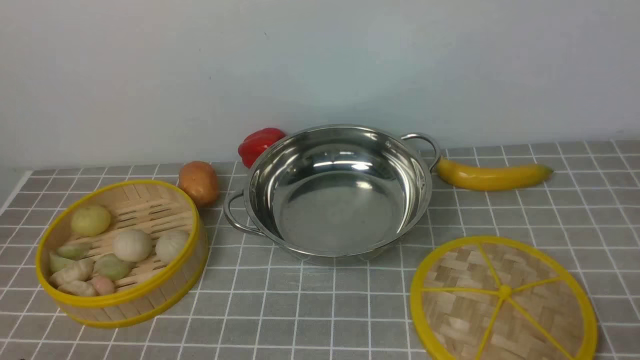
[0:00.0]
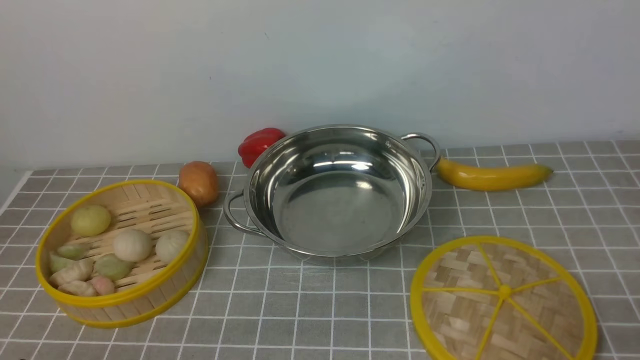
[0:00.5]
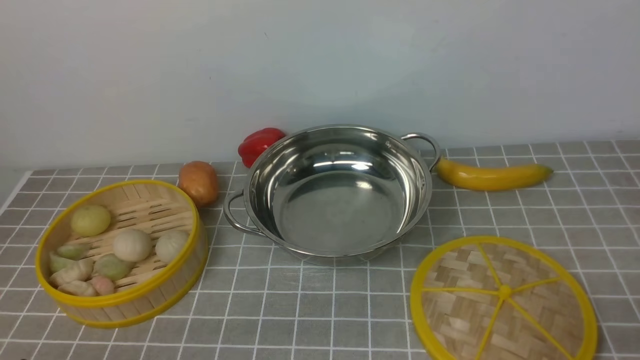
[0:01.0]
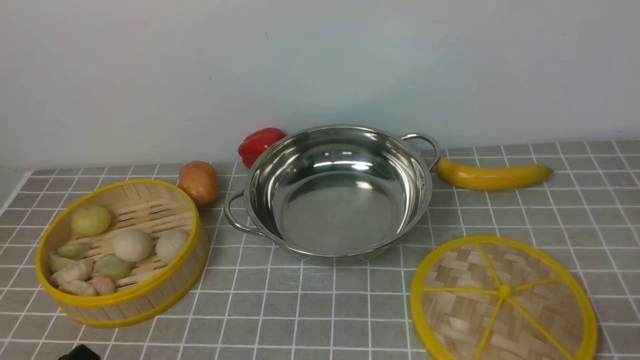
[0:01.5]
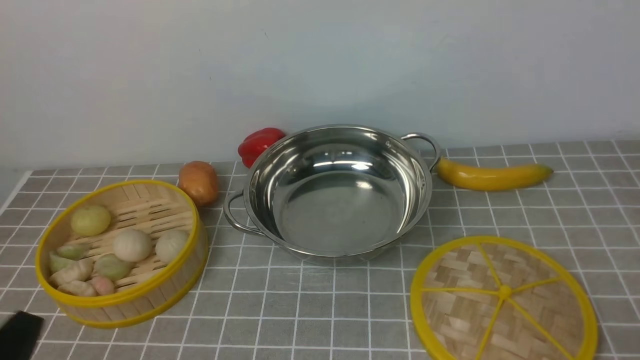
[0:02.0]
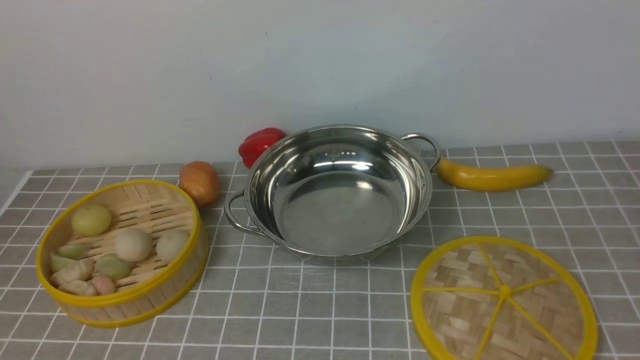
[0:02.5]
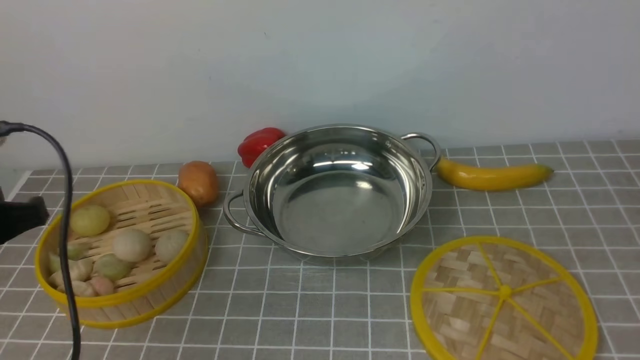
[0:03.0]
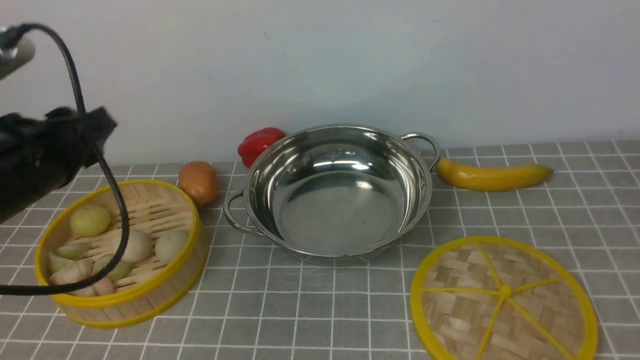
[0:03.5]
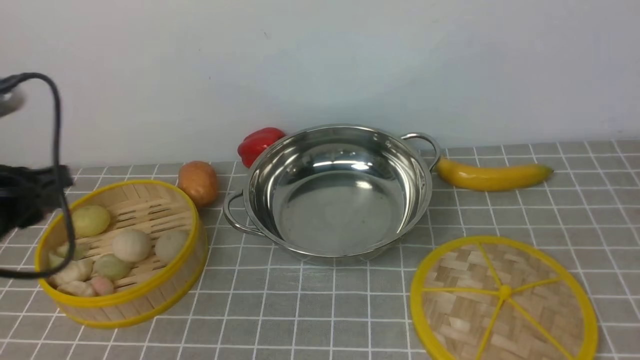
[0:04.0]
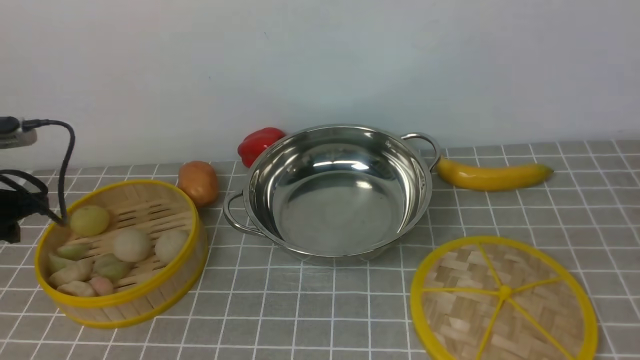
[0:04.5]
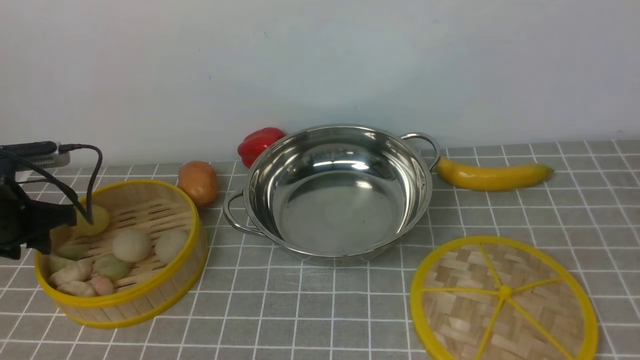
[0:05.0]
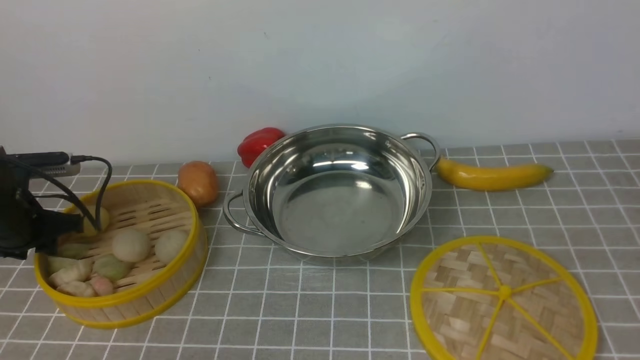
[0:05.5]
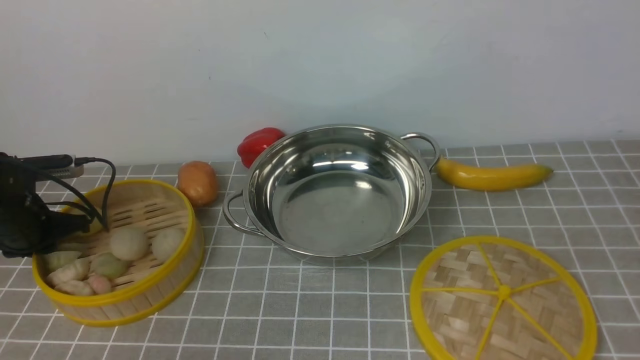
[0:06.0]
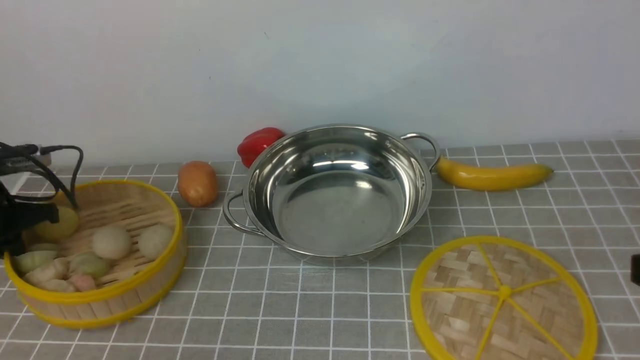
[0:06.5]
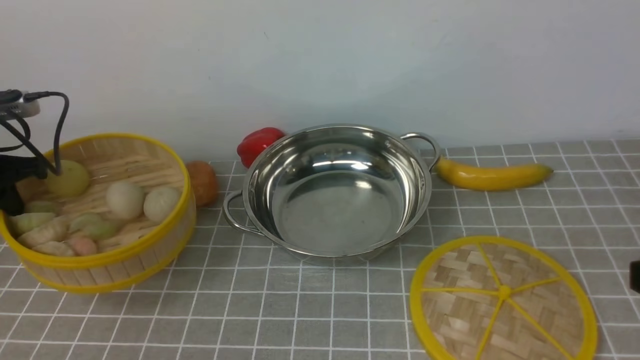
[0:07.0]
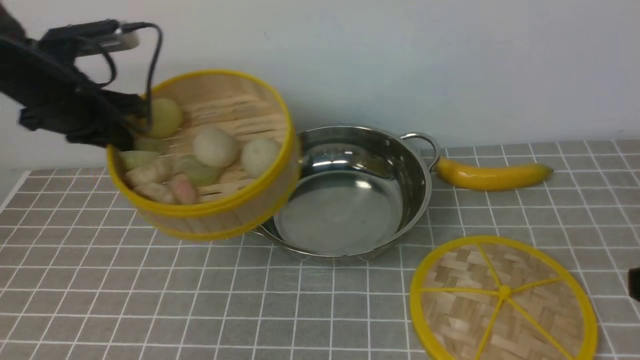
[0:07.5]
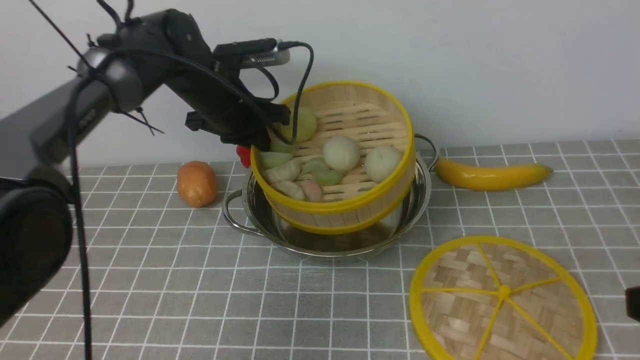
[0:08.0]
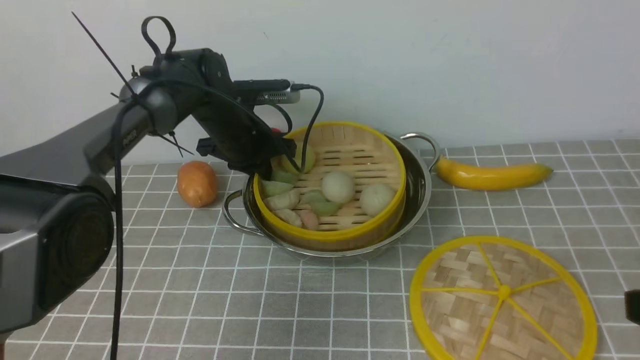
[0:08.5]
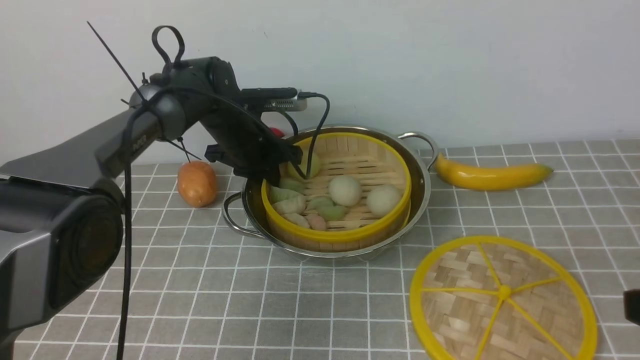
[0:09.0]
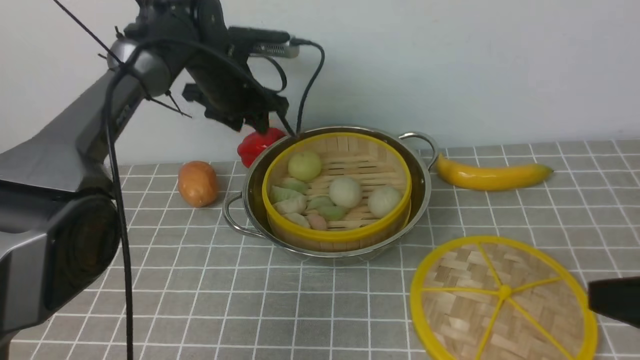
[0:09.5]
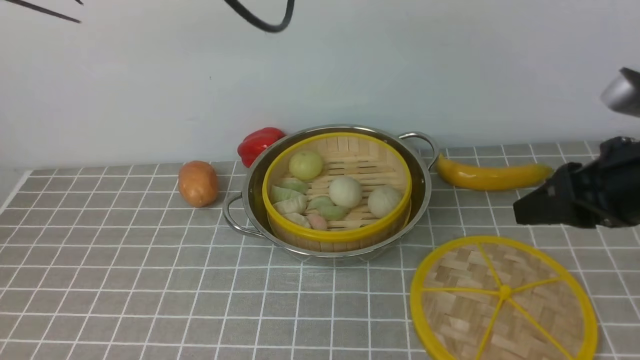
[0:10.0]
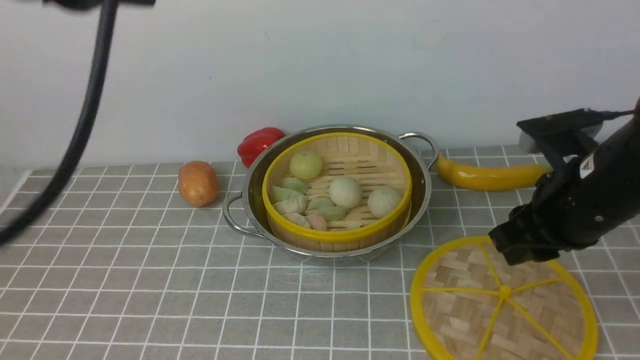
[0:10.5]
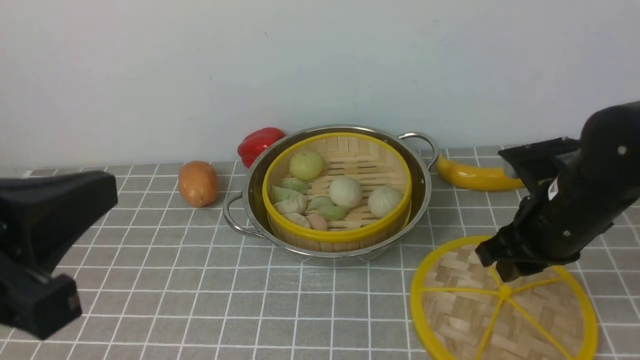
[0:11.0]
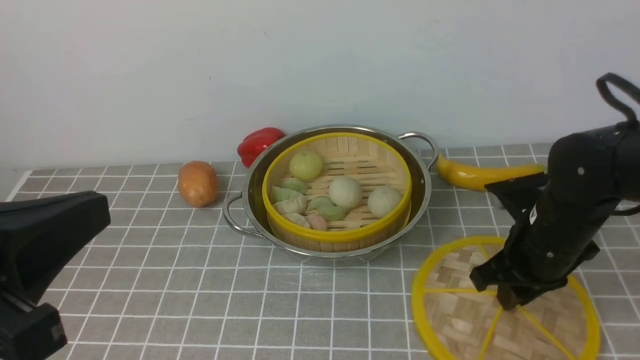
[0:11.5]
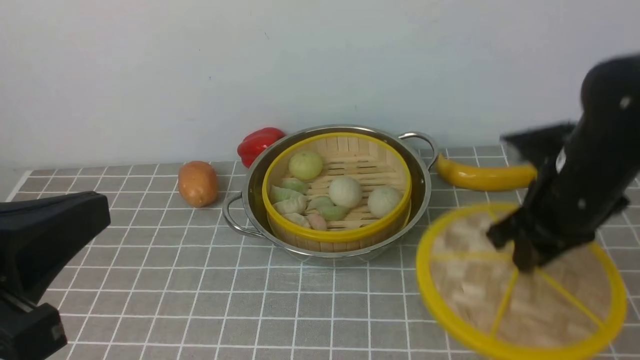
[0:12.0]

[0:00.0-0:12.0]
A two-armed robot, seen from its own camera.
Task of the whole recording: place the steamer in the pot on the grey tablecloth, and put the lid on the steamer.
Step, 0:00.0 to 0:06.5: use the left arm to lift the steamer closest to it.
Step, 0:07.0 to 0:09.0: use the left arm to put the steamer into the iron steamer pot in the middle.
Step, 0:09.5 to 0:11.5: use the right arm to lift the lid of the steamer.
0:02.0 to 0:04.0: The left gripper is displaced forward and upward by roughly 20 cm.
0:04.0 to 0:06.0: The left gripper goes some 25 cm downward, forward and to the left.
0:06.0 to 0:08.0: The left gripper heads to the right, upward and forward, covering some 25 cm.
0:08.0 to 0:10.0: The right gripper moves forward, about 10 cm. The left gripper moves upward, approximately 20 cm, and opens and closes again.
0:10.0 to 0:12.0: The right gripper travels forward and downward by some 10 cm; the left gripper shifts some 30 cm backward.

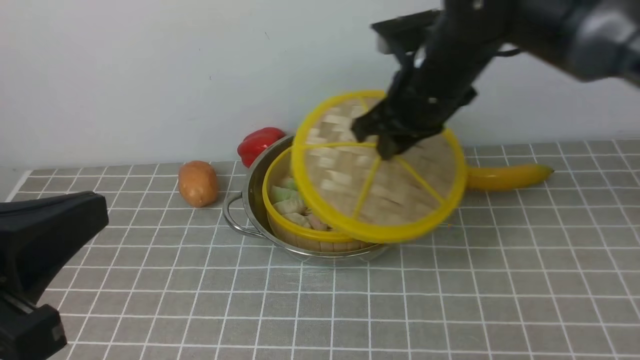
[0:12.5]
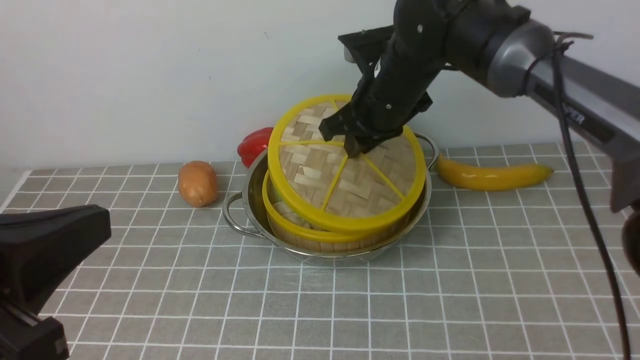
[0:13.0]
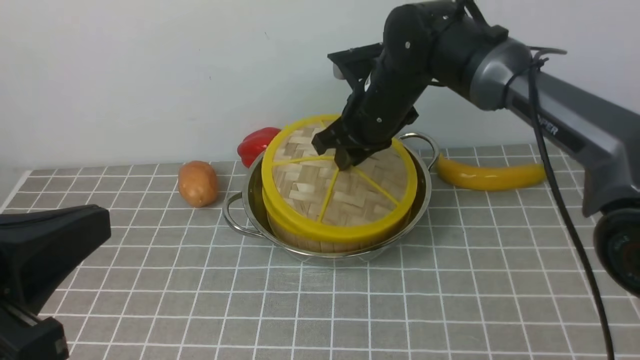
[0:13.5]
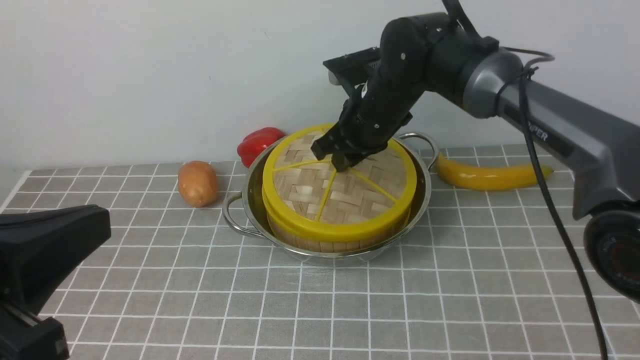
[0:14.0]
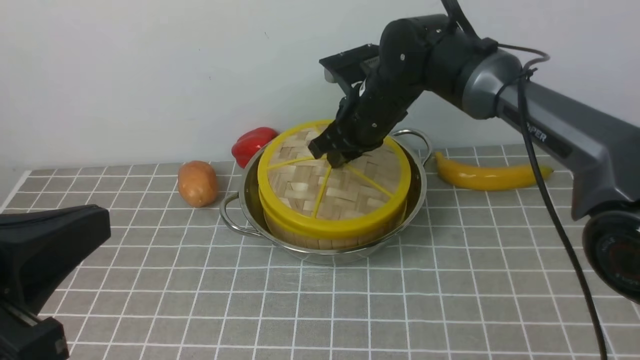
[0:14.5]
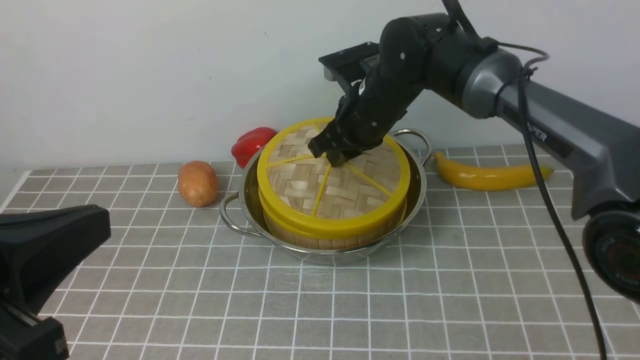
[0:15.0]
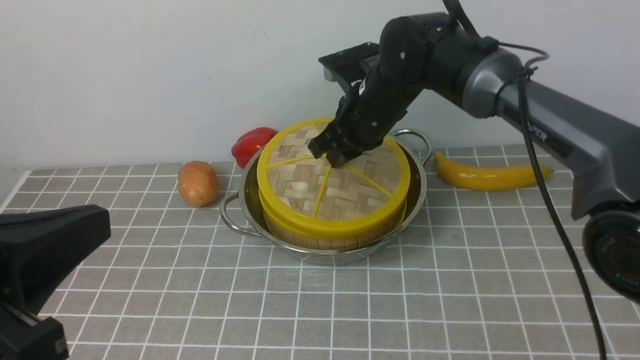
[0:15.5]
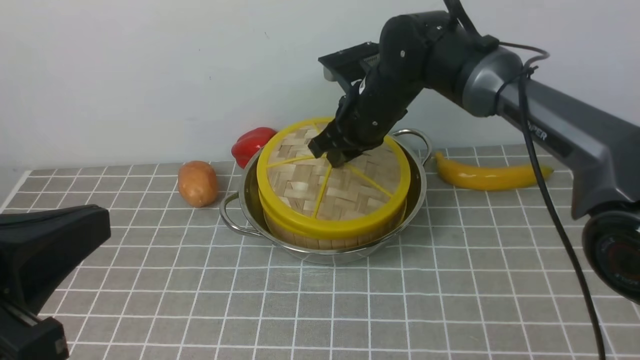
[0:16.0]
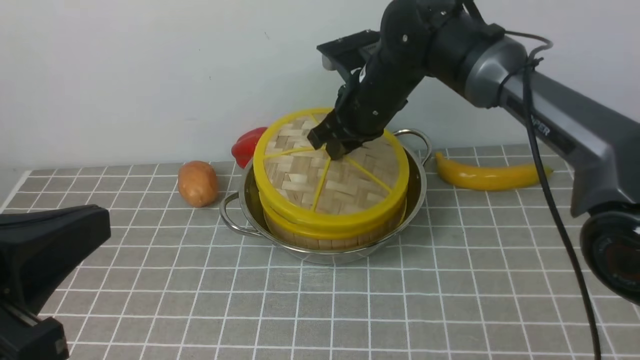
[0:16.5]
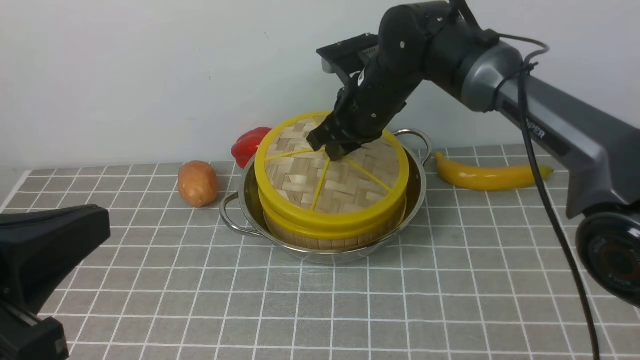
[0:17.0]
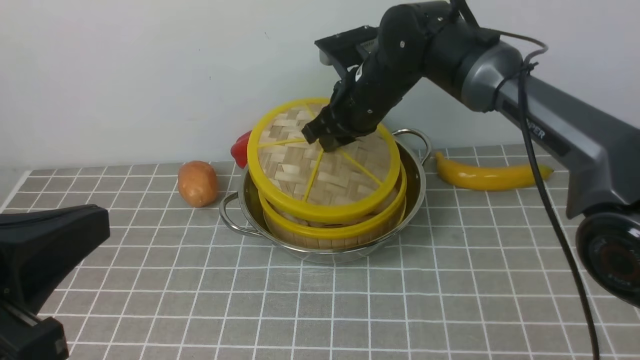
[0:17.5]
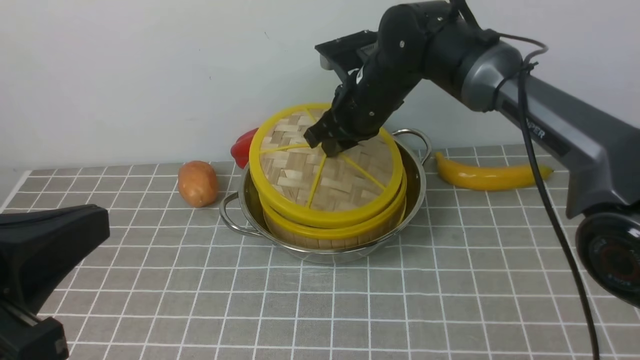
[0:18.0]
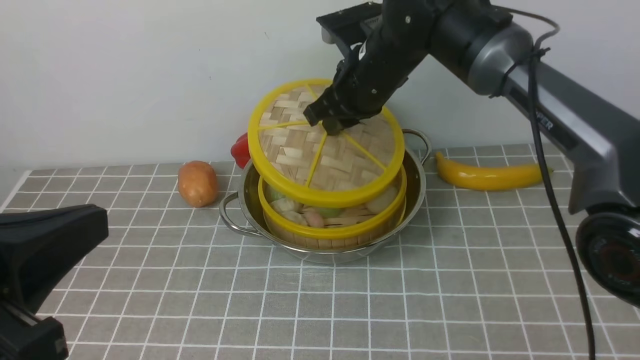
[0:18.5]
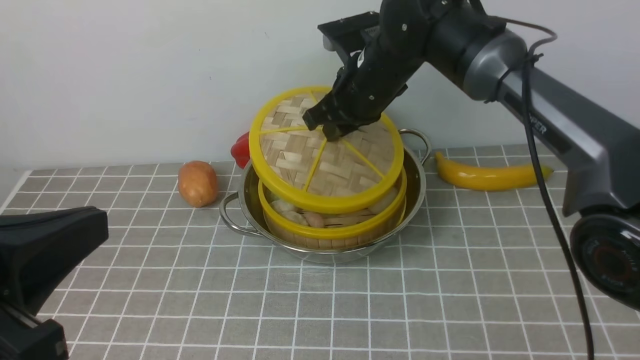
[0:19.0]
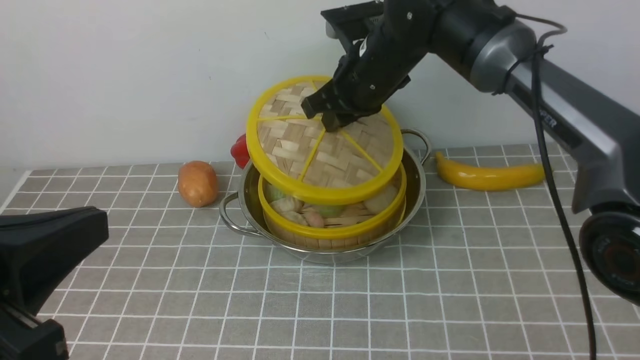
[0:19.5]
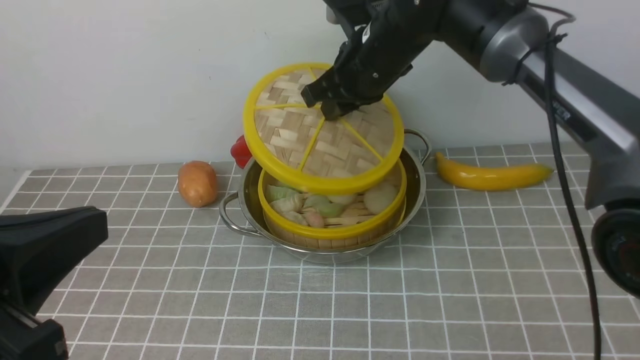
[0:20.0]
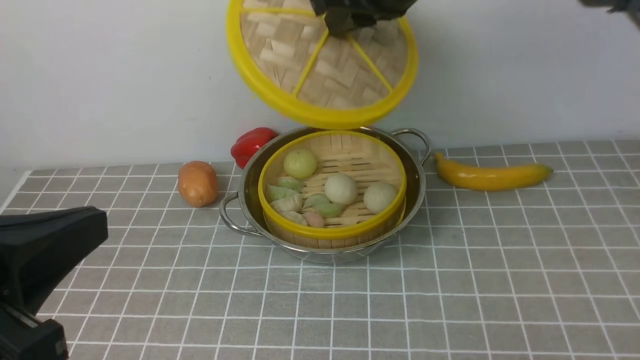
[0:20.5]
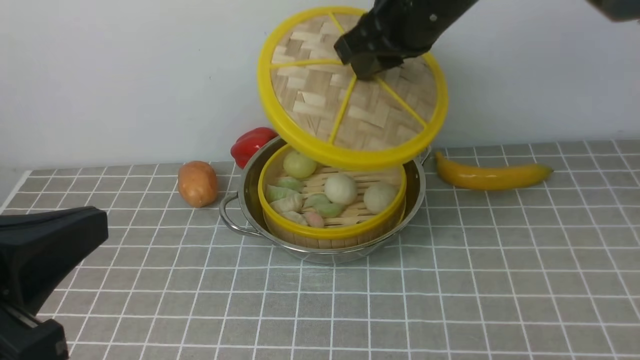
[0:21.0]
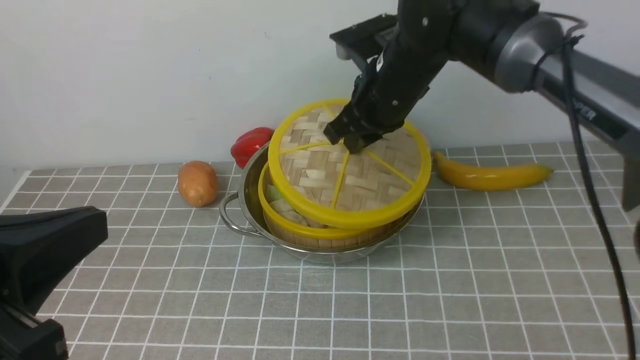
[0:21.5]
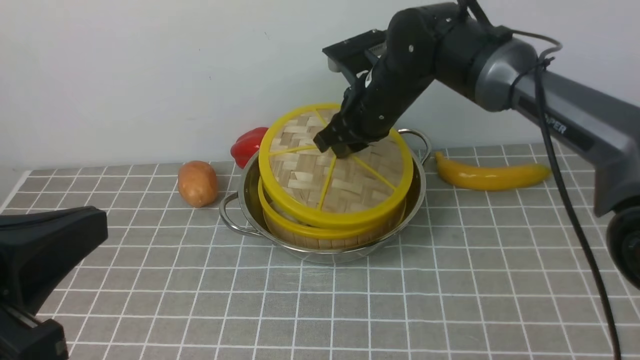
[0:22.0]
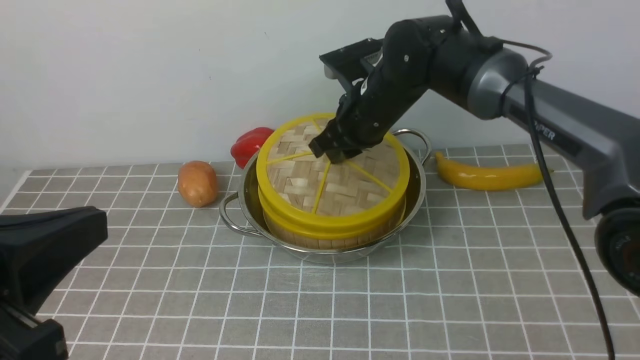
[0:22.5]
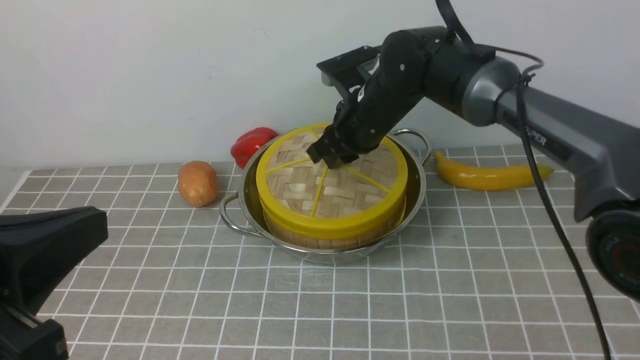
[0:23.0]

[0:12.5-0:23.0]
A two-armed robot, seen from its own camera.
Task of the whole recording: place the steamer in the pot on the grey tablecloth, and put the lid on the steamer.
0:12.5 to 0:14.5: The right gripper shifts some 15 cm downward, to the left and forward.
0:14.5 to 0:19.0: The grippers make only small movements.
0:19.0 to 0:21.0: The right gripper goes some 15 cm upward and backward.
0:21.0 to 0:23.0: The right gripper moves downward and forward, approximately 15 cm.
